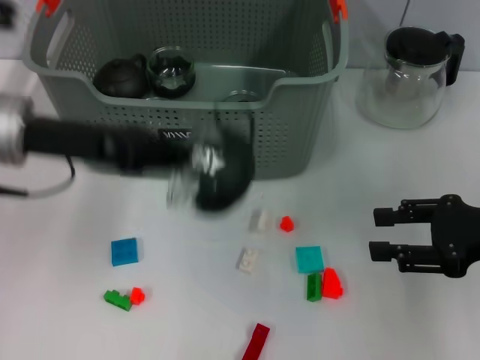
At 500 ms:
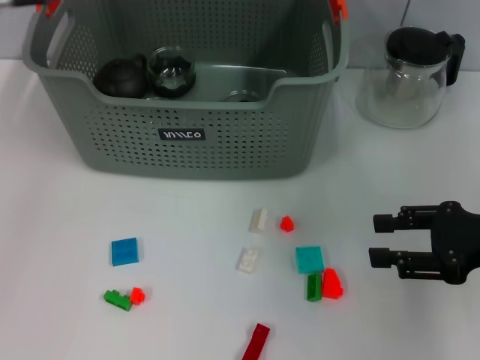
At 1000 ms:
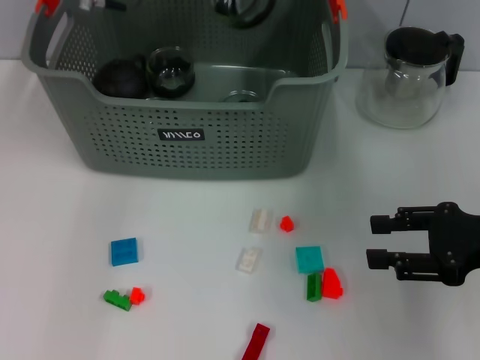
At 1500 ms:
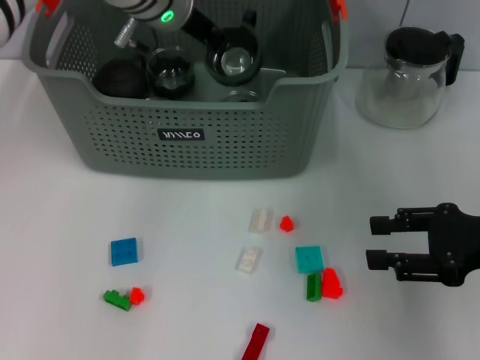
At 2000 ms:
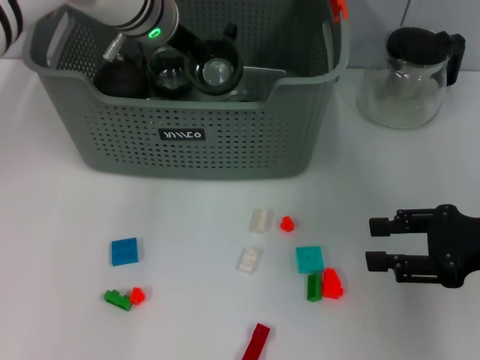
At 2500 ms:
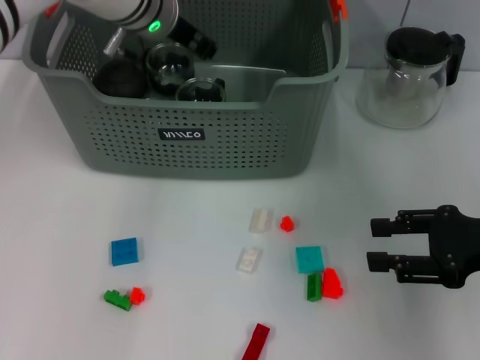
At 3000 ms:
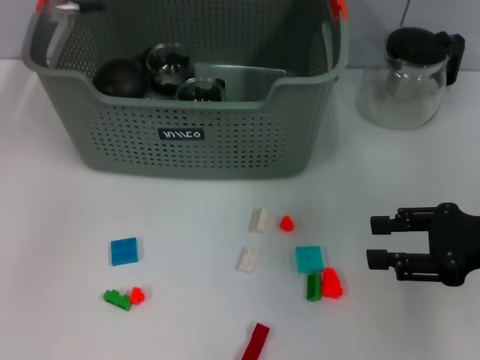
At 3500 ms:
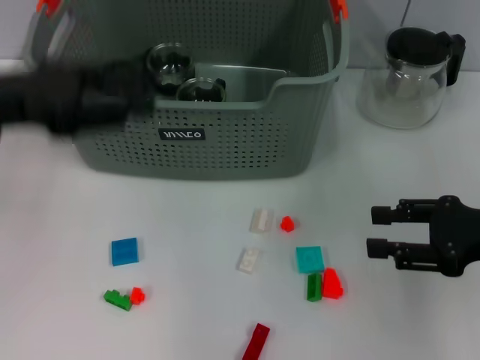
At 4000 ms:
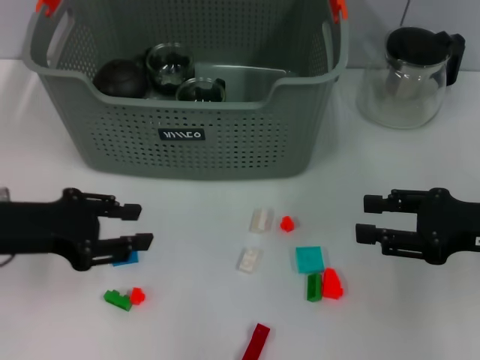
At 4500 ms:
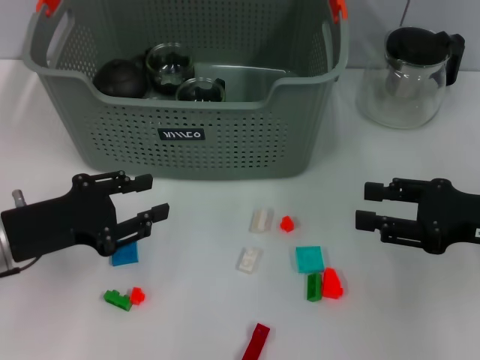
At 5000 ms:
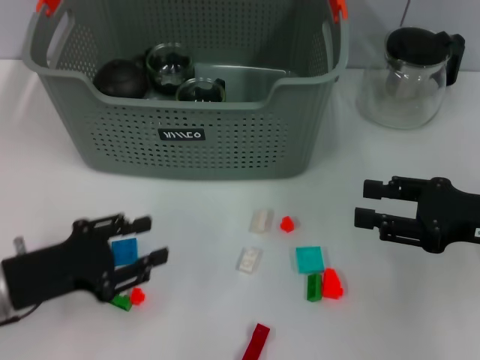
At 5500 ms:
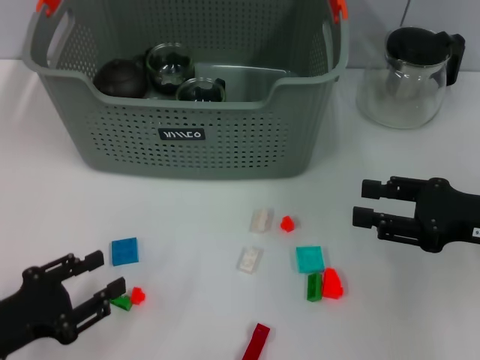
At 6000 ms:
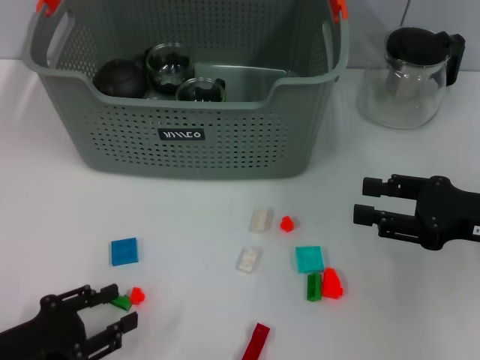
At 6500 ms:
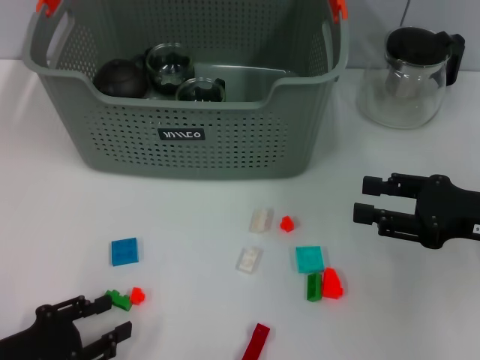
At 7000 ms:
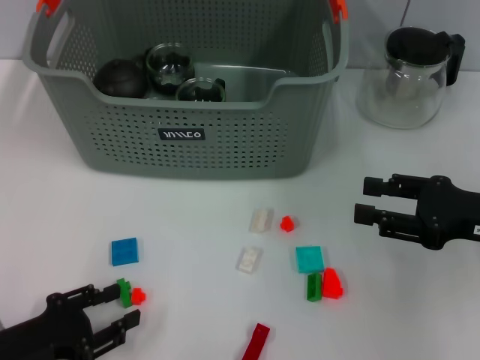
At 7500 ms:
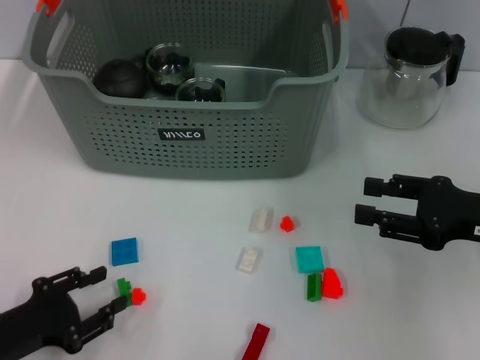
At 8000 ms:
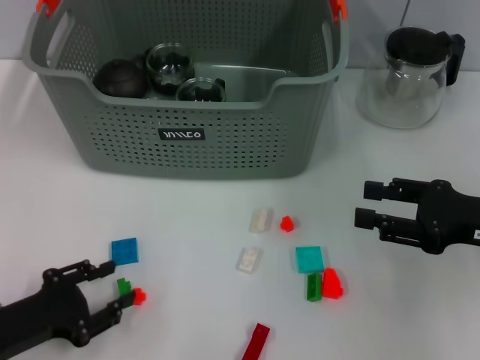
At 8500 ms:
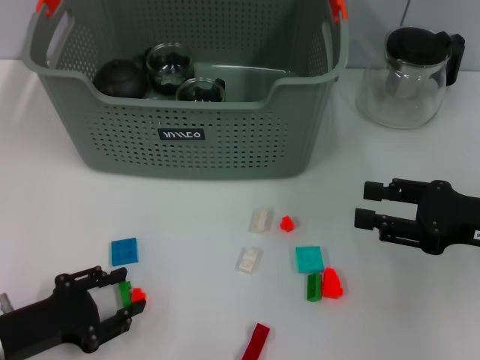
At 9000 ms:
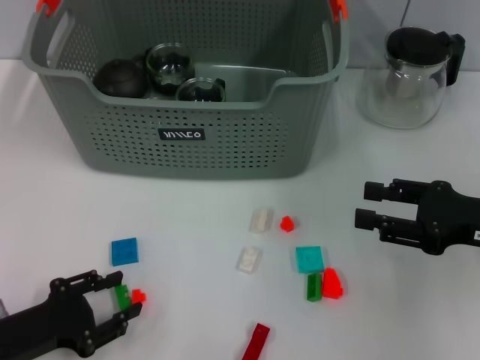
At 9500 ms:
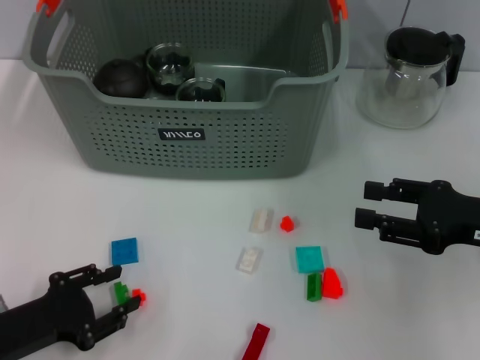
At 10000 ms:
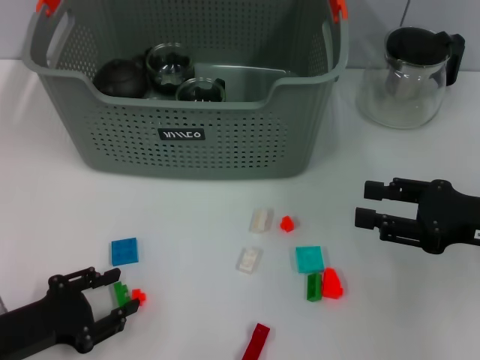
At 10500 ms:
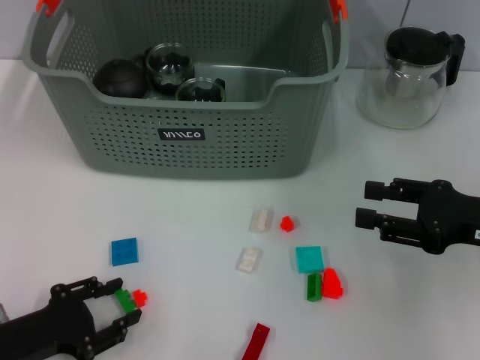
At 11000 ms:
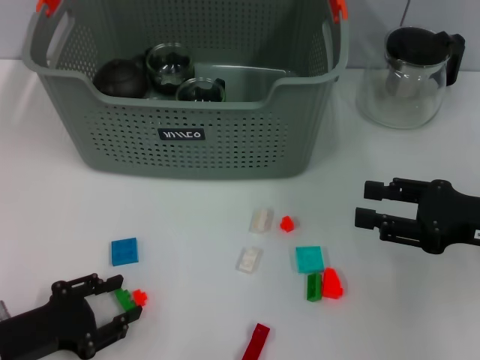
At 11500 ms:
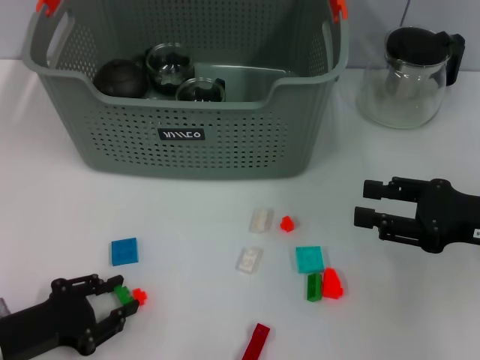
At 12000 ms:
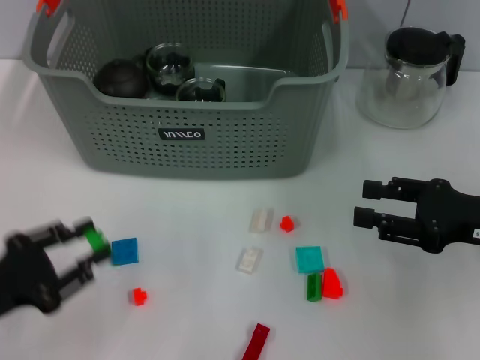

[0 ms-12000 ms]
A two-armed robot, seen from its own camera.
Task of the whole recording: pick up the teacup on the table and place it into the storage bin, pick up the block on the table and place it into the storage bin.
Step, 0 ms to 2500 ms: Place the cup in the storage box with left gripper.
Step, 3000 ms to 11500 ms: Grasp the green block with left gripper.
0 ms to 2000 ms: The left gripper goes approximately 20 cm forward and to the right.
2000 ms to 4000 ms: The left gripper goes roughly 25 cm backward and to the left, and opens its fingers.
4000 ms to 6000 ms: The left gripper is displaced backward and downward by some 15 cm.
6000 ms to 8000 ms: There are only small adjustments of the grippers.
8000 ms to 10000 ms: Both grippers stay about where they are.
10000 ms to 12000 ms: There are only small adjustments of the grippers.

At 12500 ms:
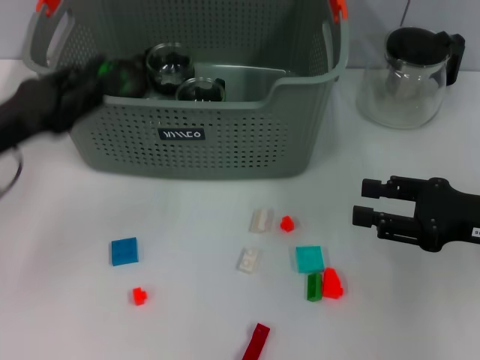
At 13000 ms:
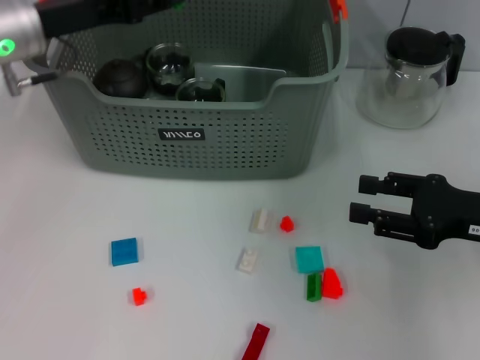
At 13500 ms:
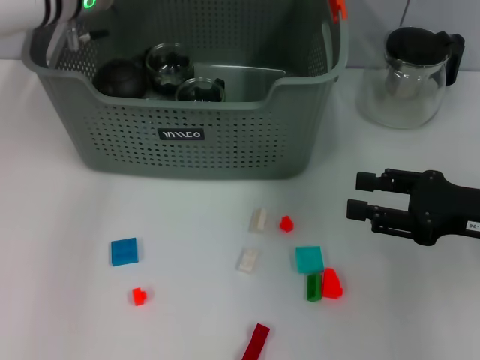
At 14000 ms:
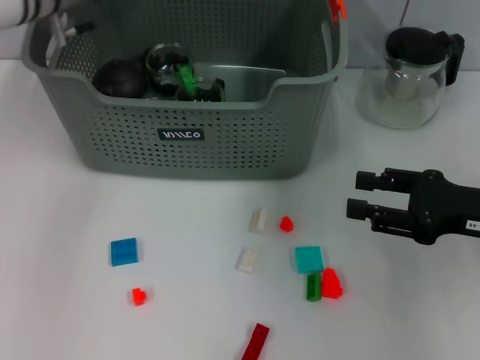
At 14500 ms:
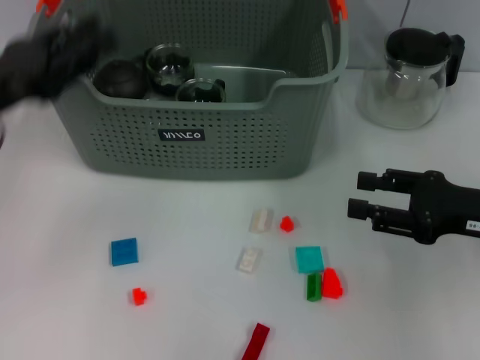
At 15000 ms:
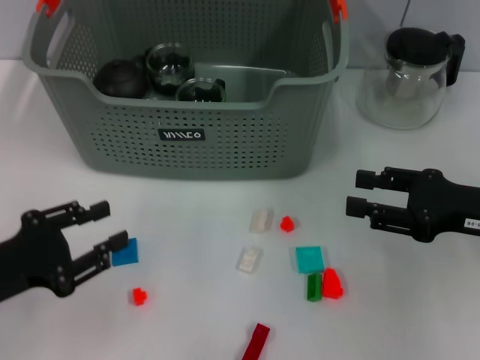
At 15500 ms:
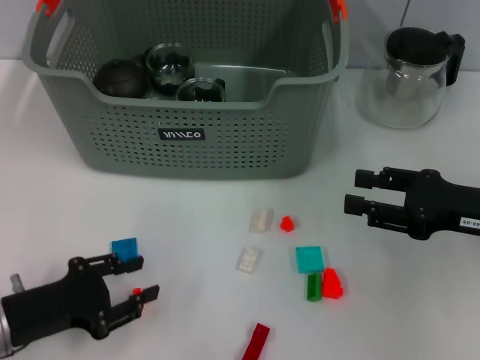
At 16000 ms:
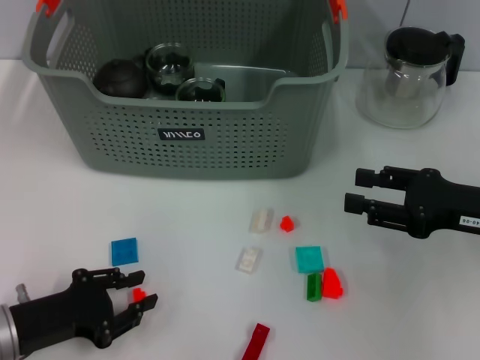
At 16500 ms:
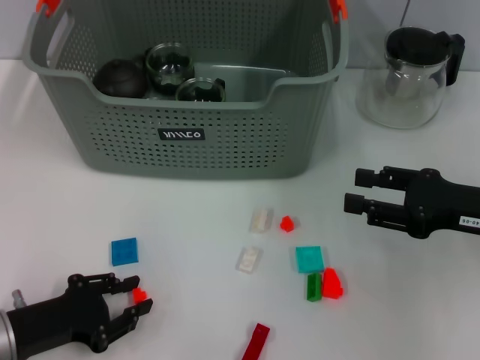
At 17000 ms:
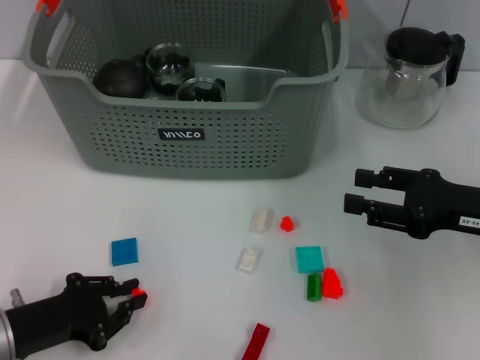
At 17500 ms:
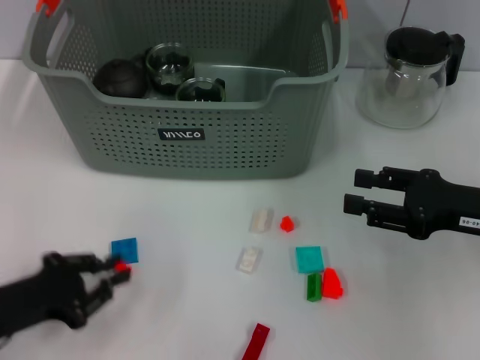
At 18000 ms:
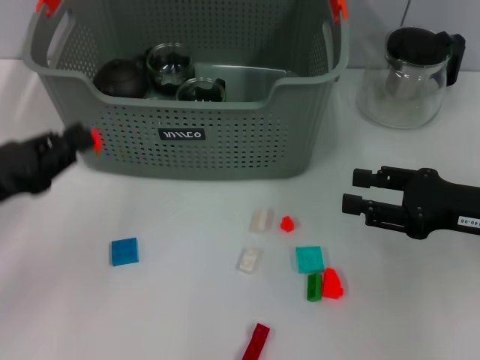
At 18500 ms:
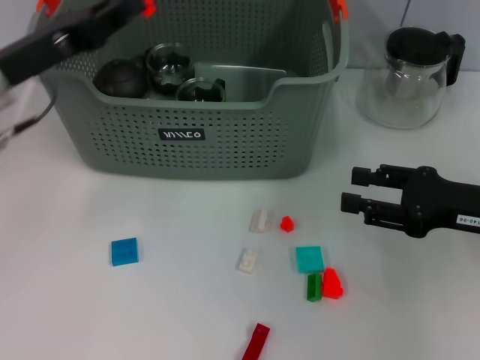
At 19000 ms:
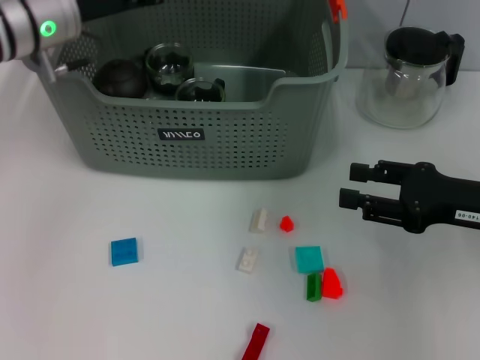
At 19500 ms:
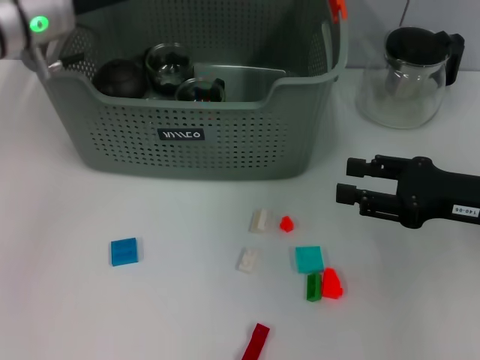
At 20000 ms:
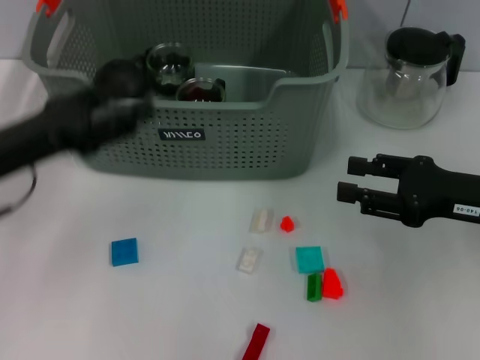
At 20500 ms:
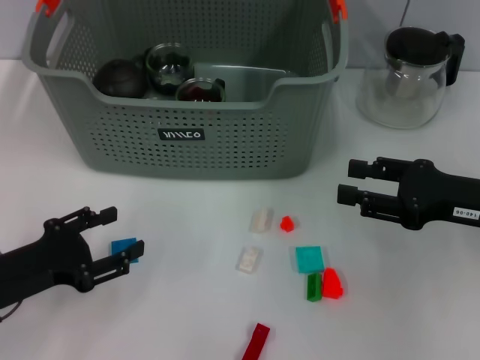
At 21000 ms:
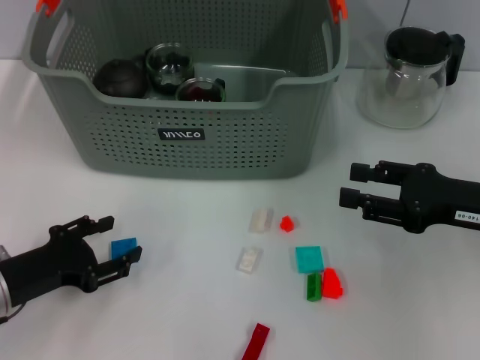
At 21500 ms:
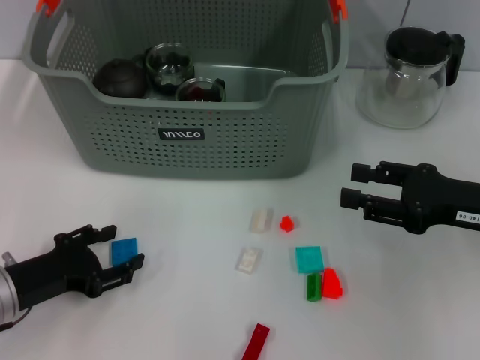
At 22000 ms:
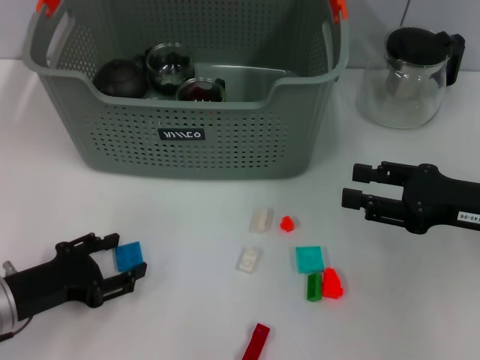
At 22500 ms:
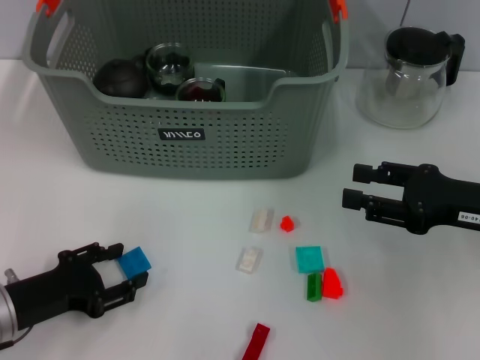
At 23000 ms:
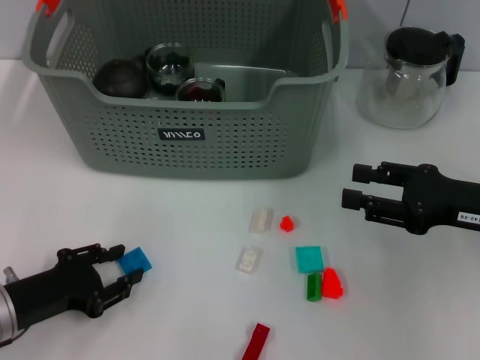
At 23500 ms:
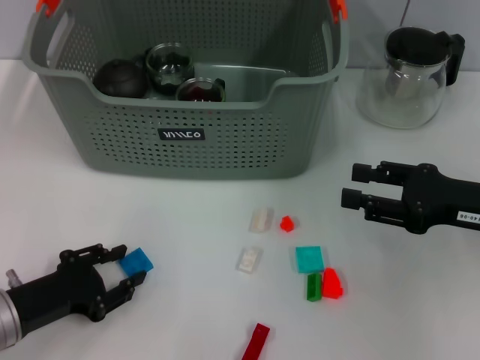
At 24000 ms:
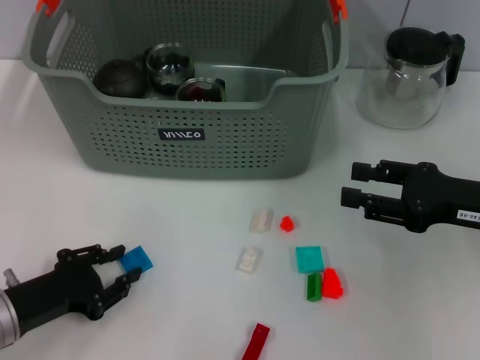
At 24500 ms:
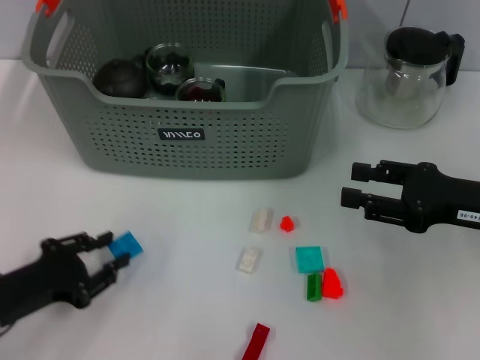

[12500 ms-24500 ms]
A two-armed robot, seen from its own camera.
Task of the whole recording: pick up the teacup on the table and place it into the storage bin, pick up the block on the table and place it into the storage bin.
Step, 12500 ms to 14000 ms: Place the green block in the storage box with left gripper.
Step, 14500 ms to 17000 ms: Grasp the orange block with left gripper.
Step, 17500 ms to 19500 ms: Place the orange block in the storage box with left gripper.
Step, 20000 ms to 24000 ms: Grasp the dark blue block with left gripper.
12500 ms to 14500 ms: The left gripper goes forward and returns, approximately 15 cm each way.
14500 ms to 16500 ms: The left gripper goes approximately 20 cm downward and backward.
16500 ms to 18500 ms: The left gripper goes some 20 cm forward and upward.
18500 ms to 20500 ms: The left gripper moves backward and downward, approximately 20 cm, and opens its fingers.
20500 ms to 22500 ms: The grippers make only small movements.
22500 ms to 24500 ms: The left gripper closes its fingers.

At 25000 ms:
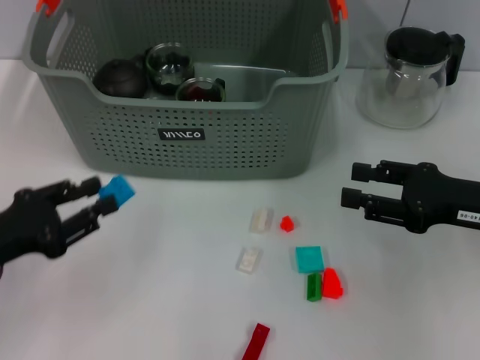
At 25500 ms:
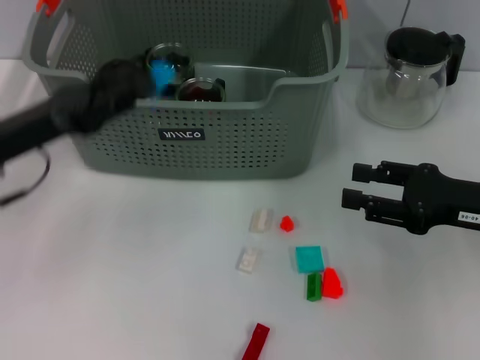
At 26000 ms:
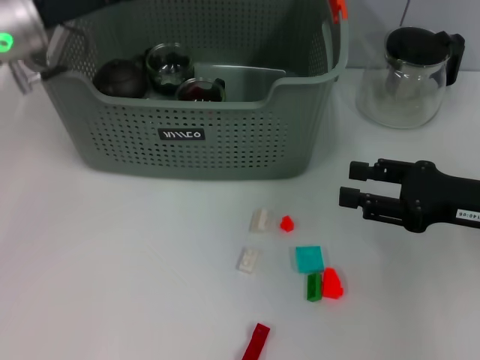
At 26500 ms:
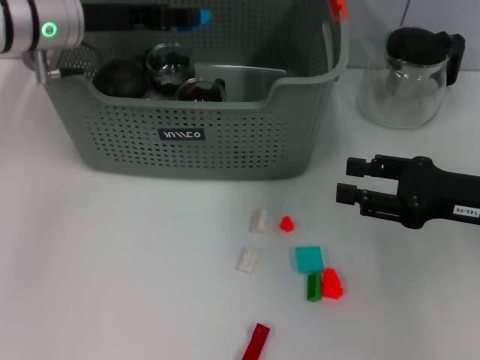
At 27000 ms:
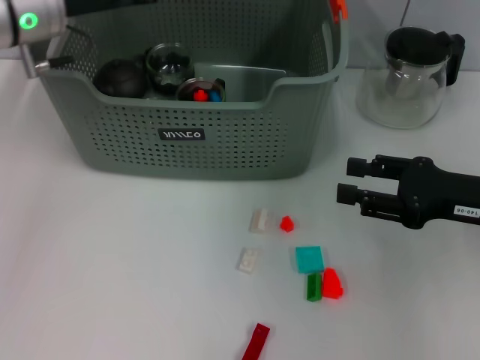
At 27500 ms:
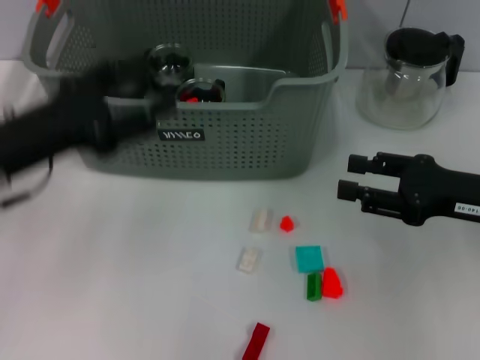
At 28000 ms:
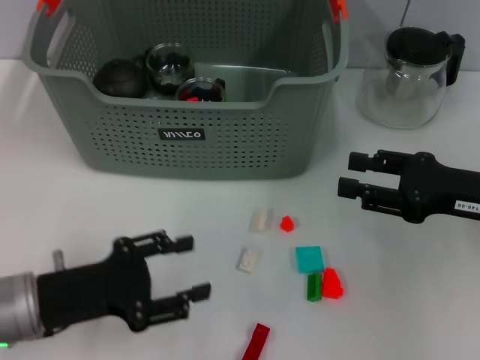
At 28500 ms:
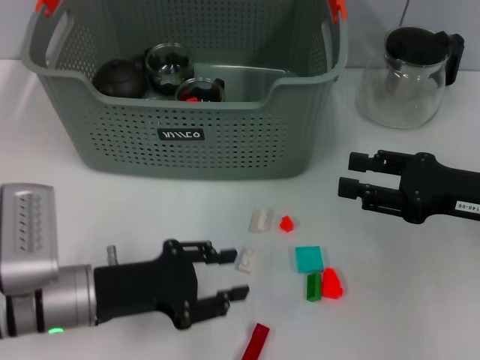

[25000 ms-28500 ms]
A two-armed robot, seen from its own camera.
Task of the whole recording: pick up the teacup on the table and place it into the storage bin, pick up the block on the table and place it into the storage bin.
Step, 25000 ms to 26500 ms: Place the dark blue block in the storage box with left gripper.
25000 ms to 27000 ms: The left gripper is displaced forward, upward and to the right by roughly 25 cm.
27000 ms to 28500 ms: The left gripper shifts about 25 cm backward and downward.
